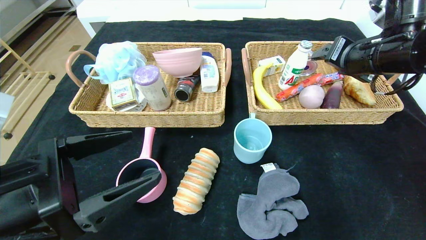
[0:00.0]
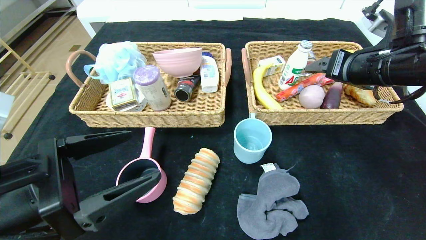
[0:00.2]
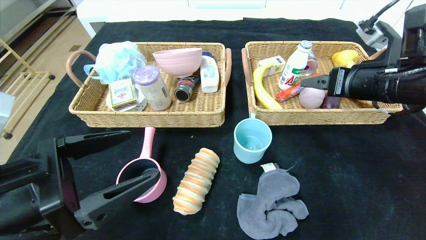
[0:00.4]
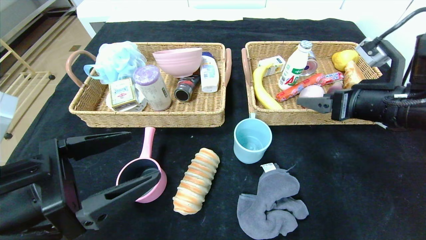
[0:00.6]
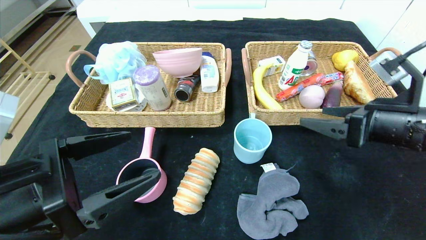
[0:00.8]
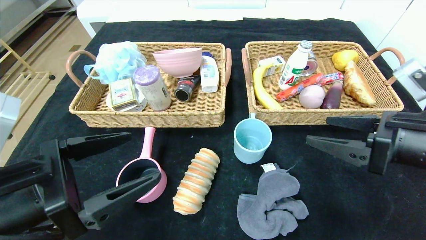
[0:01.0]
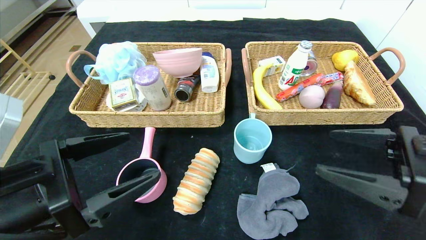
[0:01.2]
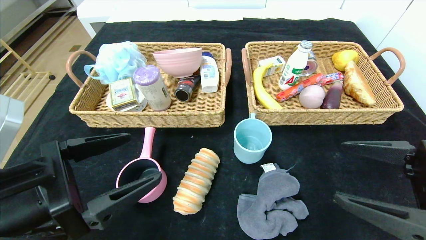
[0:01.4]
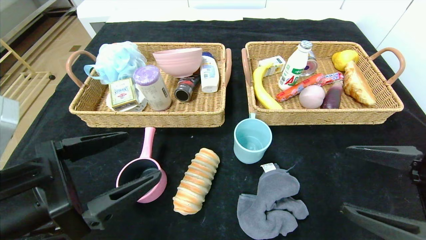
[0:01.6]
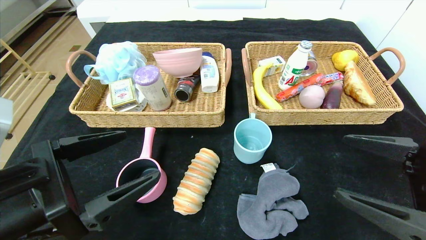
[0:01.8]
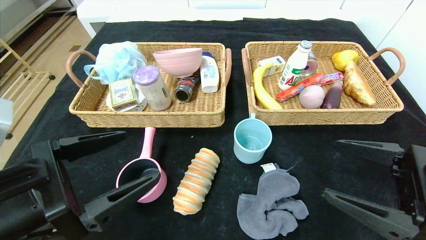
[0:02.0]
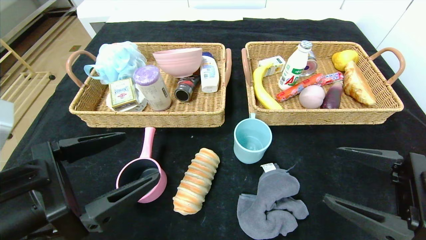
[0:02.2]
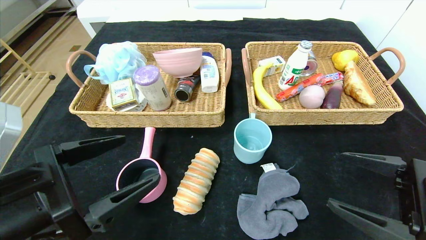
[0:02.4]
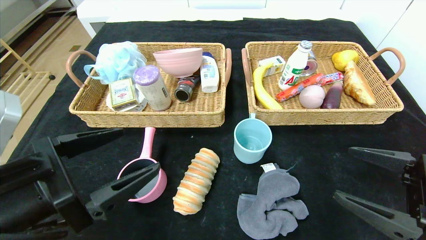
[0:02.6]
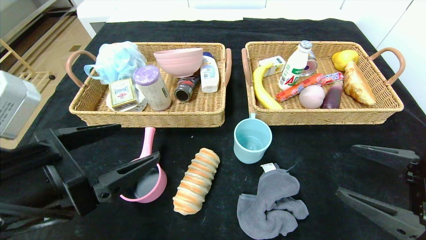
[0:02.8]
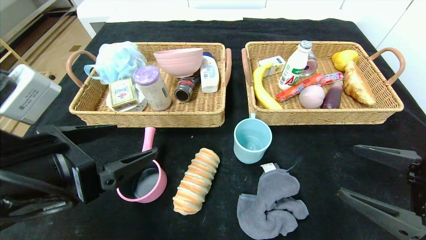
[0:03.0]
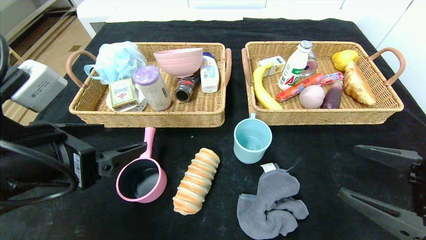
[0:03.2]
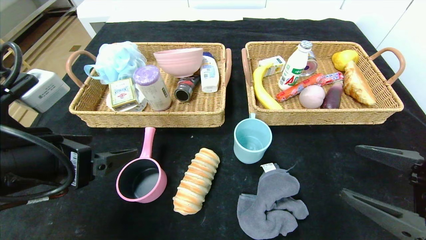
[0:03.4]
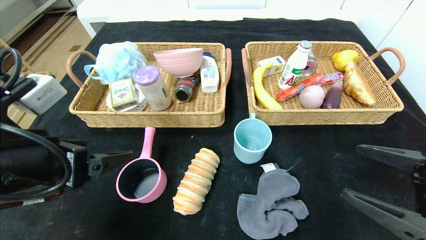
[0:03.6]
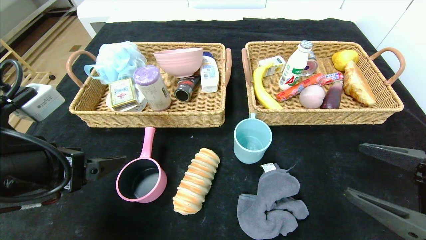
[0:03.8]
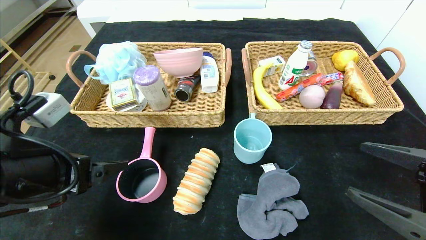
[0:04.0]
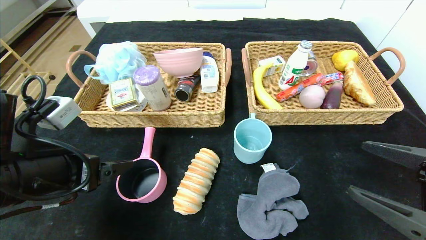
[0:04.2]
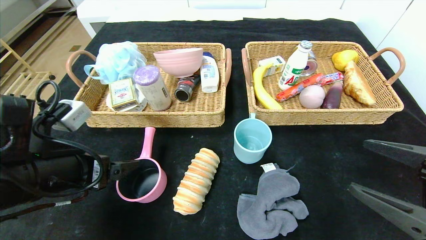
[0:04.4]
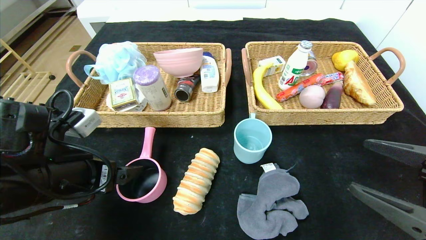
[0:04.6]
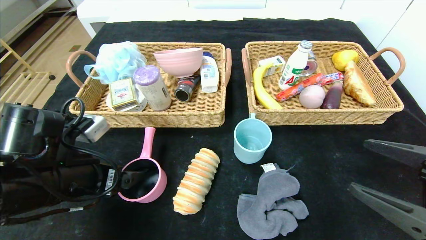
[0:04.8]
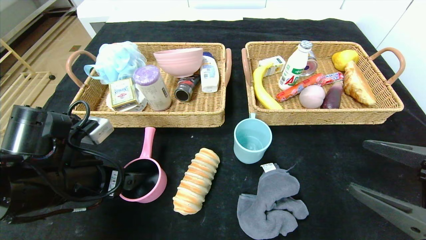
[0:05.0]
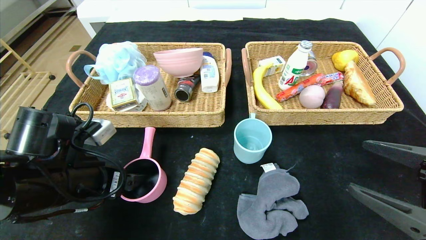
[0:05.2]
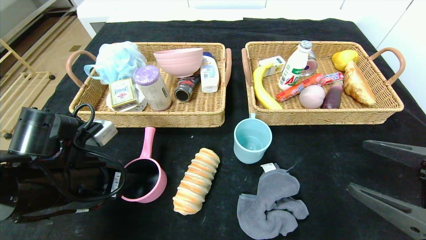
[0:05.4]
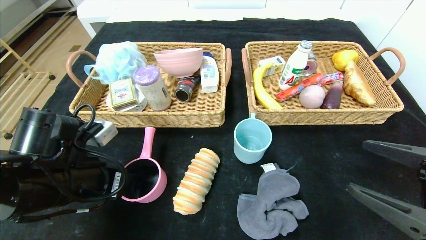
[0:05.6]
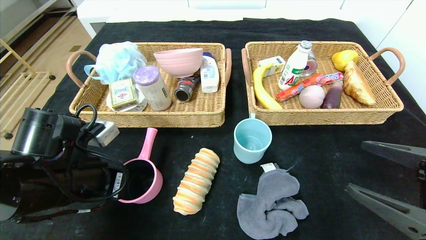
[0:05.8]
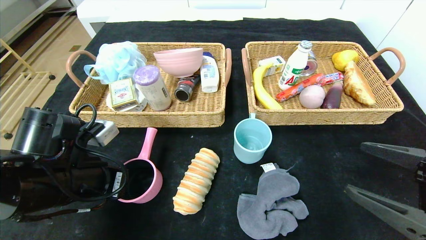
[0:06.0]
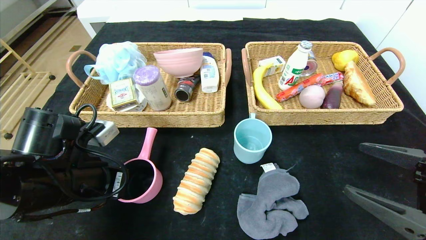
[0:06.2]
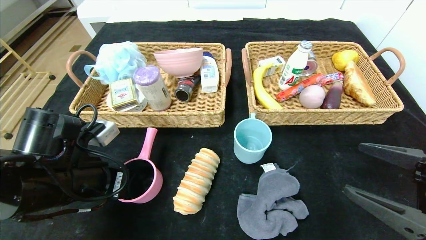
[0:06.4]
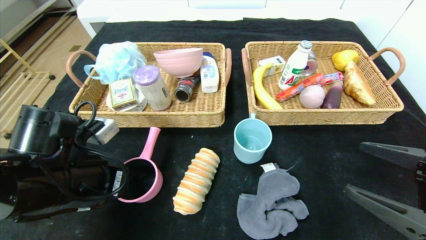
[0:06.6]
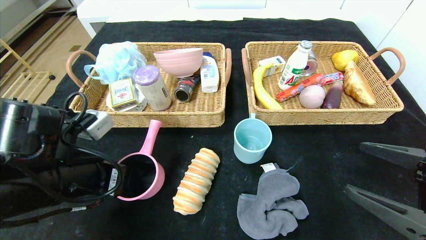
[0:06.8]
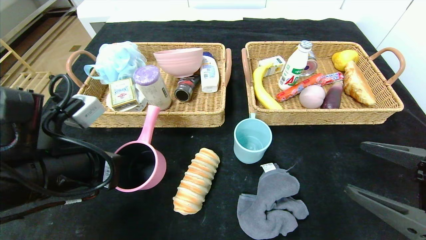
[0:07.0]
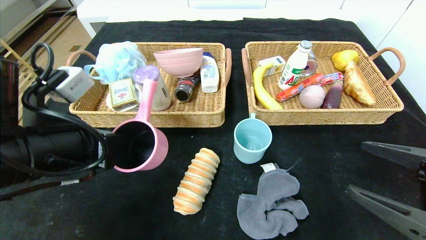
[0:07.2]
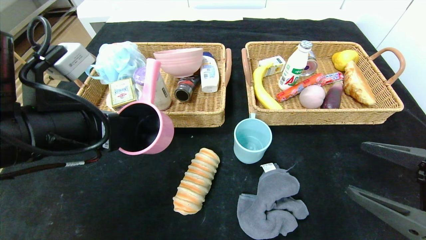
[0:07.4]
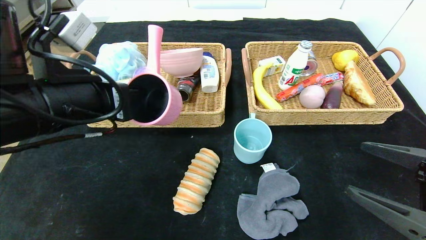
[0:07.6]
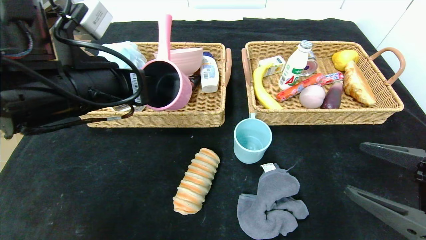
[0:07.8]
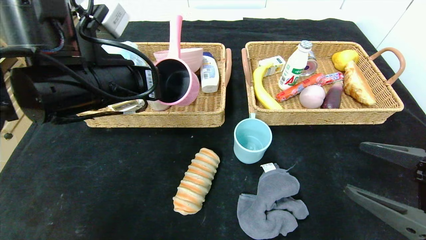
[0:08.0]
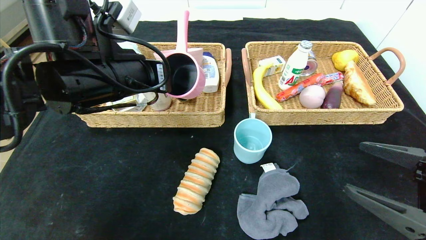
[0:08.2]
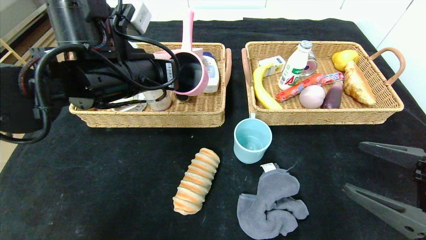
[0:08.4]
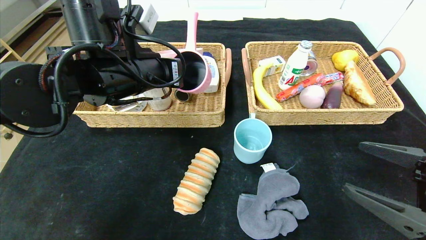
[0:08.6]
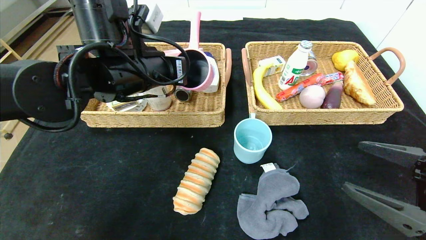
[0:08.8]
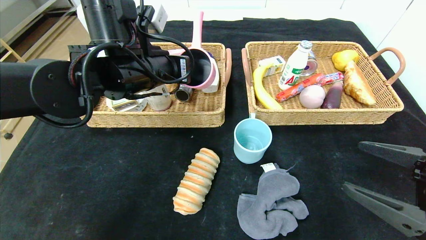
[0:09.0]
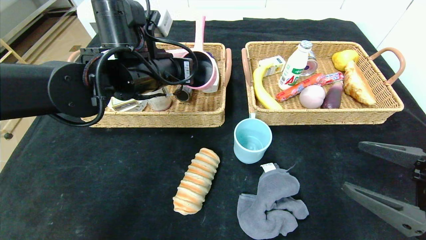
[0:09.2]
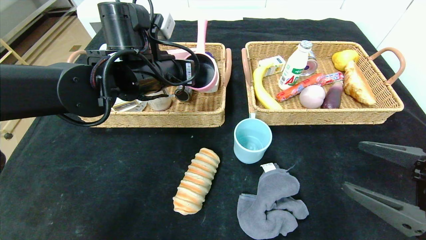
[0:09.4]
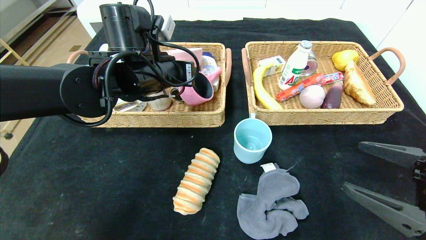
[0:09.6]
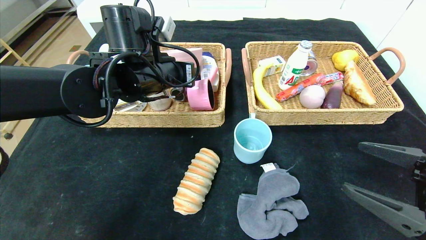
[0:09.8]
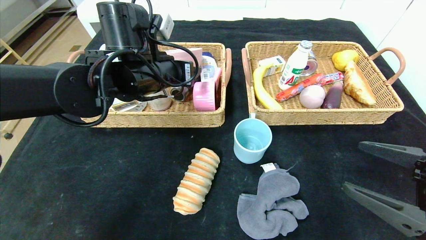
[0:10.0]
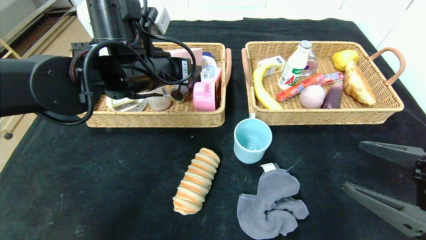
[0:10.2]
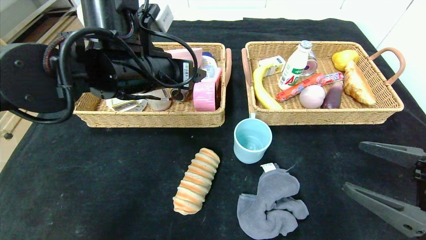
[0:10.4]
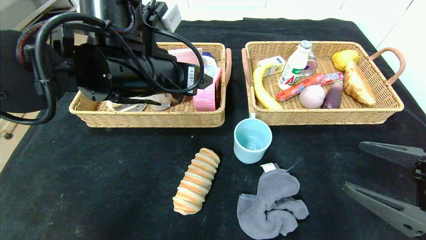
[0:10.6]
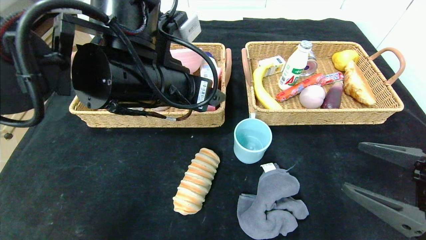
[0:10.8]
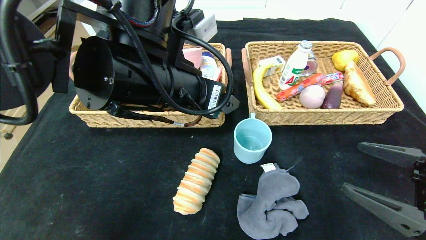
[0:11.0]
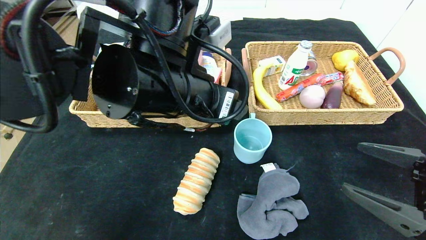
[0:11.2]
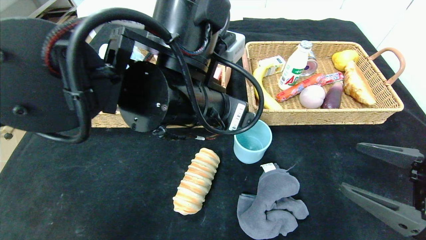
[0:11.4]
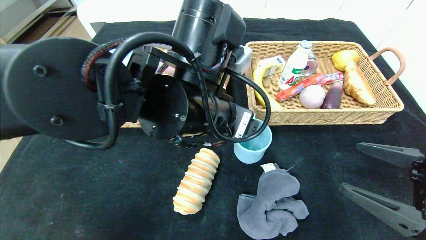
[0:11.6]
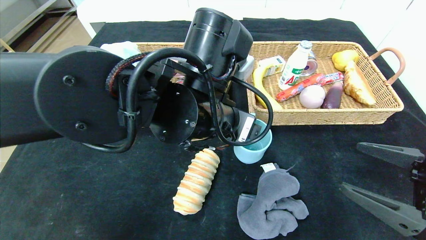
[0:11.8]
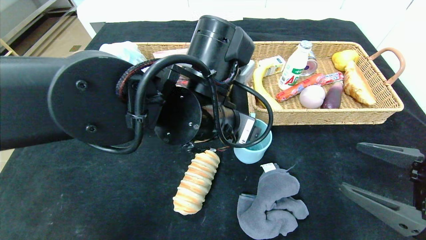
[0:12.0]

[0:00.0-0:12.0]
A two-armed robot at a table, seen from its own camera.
Step, 0:01.0 to 0:11.6: Pick up the pink pot and put it in the left basket.
0:00.0 to 0:01.6: The right gripper is displaced backward and downward by approximately 25 cm.
0:01.6 to 0:03.0: There are only small adjustments of the grippers.
0:03.0 to 0:04.4: The left gripper moves some 5 cm.
0:04.4 to 0:06.0: The left gripper closes.
0:06.0 to 0:07.6: The left gripper goes some 10 cm upward.
0:07.6 to 0:09.0: The left gripper is displaced forward and to the right by about 15 cm.
0:09.0 to 0:10.4: The left gripper opens its fingers.
0:10.4 to 0:12.0: The left gripper goes some 10 cm to the right and backward.

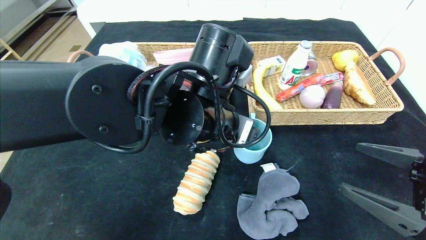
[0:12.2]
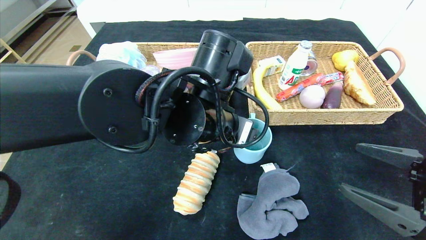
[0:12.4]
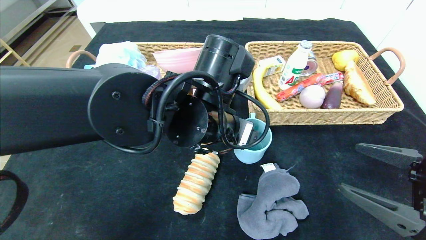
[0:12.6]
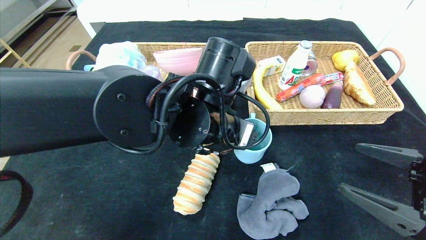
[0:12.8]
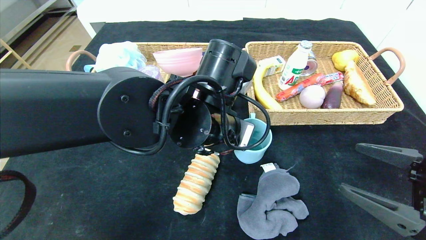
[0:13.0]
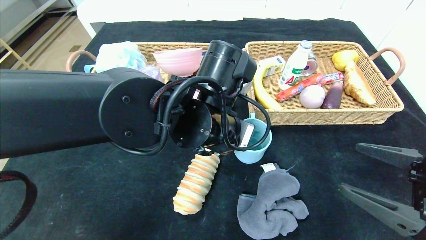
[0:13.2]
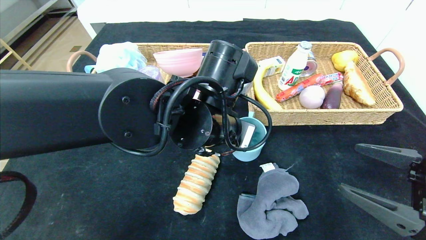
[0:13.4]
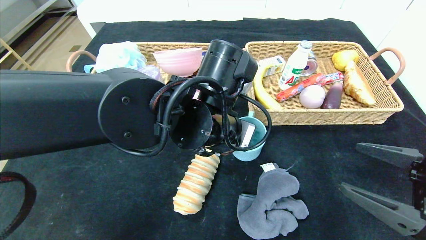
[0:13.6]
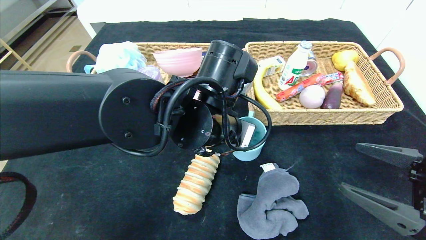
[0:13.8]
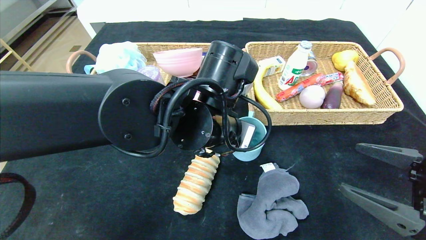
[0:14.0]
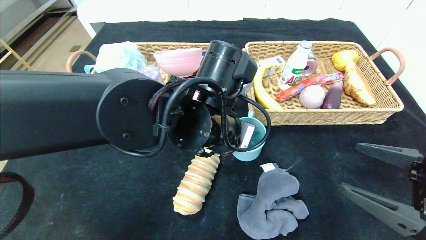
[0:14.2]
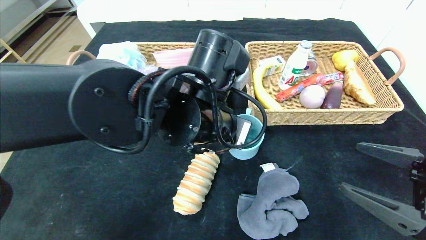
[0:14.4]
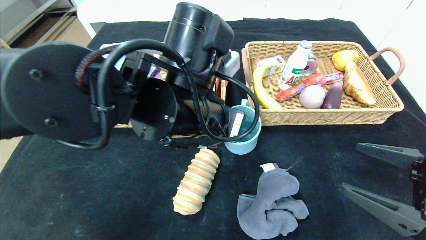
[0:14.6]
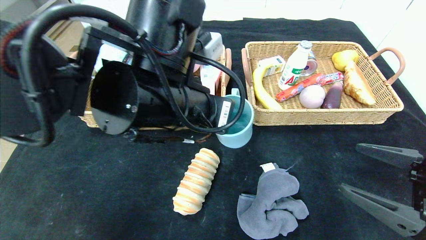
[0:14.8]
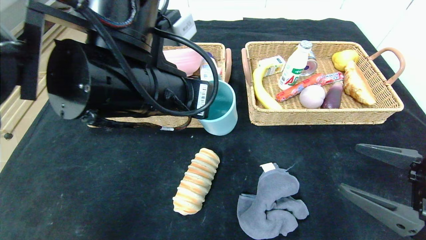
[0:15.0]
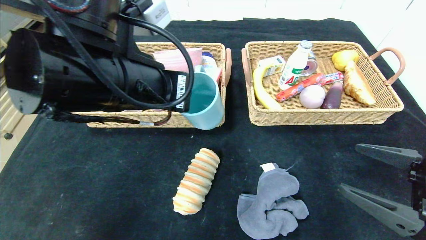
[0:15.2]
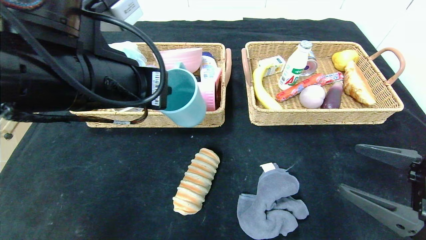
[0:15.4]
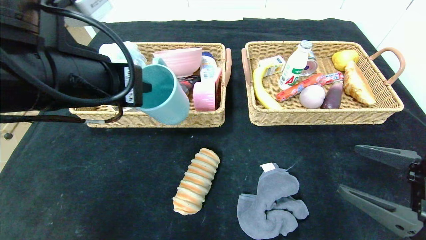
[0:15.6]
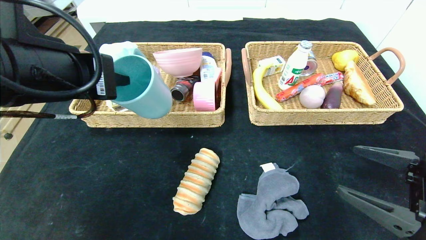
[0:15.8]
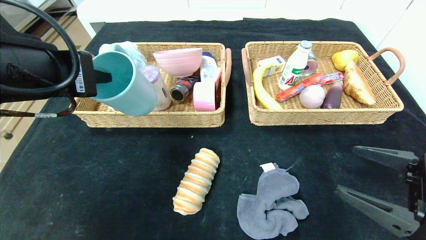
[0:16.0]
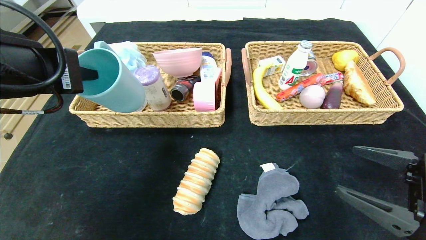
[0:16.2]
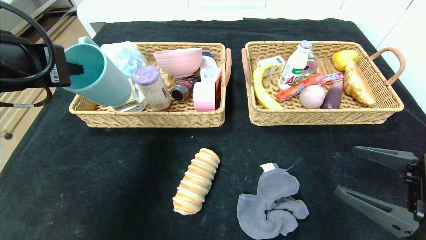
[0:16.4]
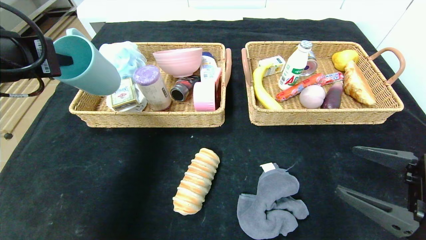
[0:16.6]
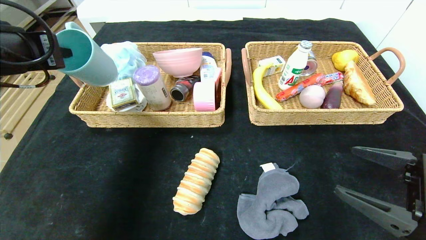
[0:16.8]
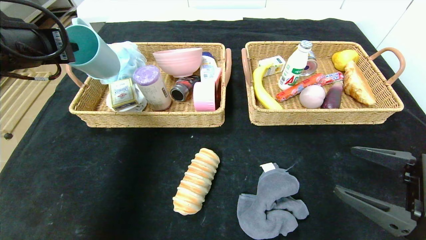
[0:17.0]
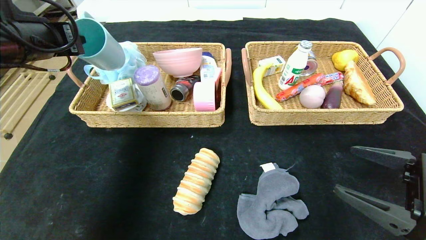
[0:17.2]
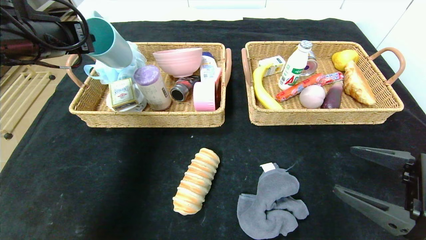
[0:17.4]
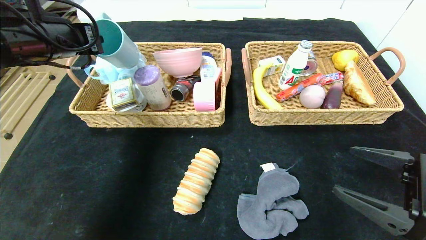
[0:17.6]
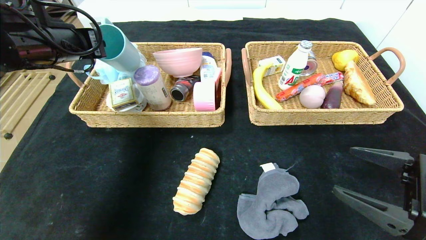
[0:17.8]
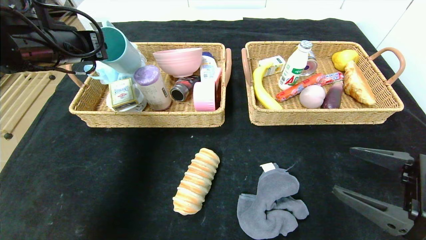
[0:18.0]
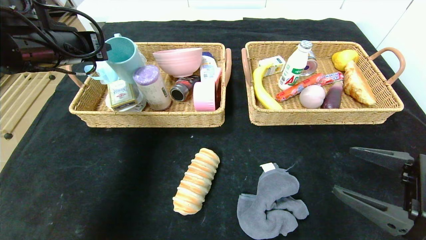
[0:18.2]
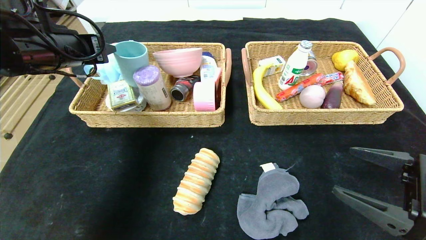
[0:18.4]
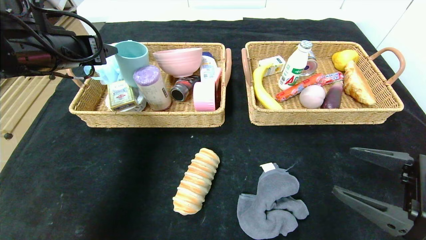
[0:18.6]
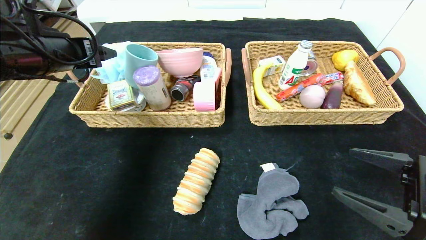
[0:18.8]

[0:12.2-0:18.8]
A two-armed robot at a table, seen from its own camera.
0:12.2 to 0:13.8: The left gripper closes up.
0:13.8 to 0:15.4: The left gripper goes about 15 cm to the left, upward and backward.
0:15.4 to 0:17.2: The left gripper heads to the left and forward, covering about 15 cm.
0:17.2 to 0:18.8: The left gripper opens its fingers.
